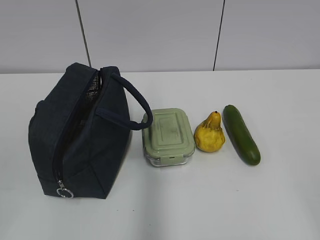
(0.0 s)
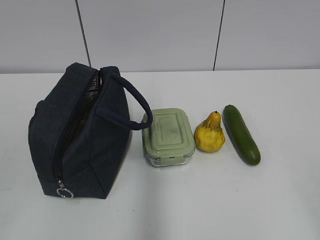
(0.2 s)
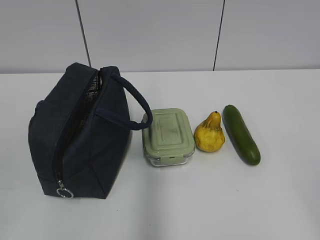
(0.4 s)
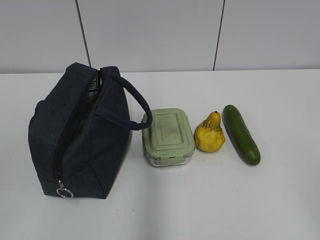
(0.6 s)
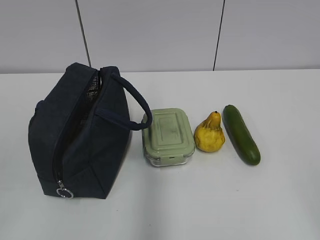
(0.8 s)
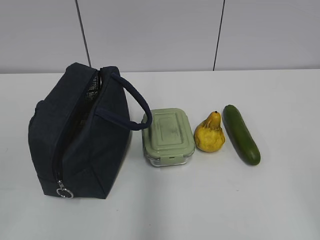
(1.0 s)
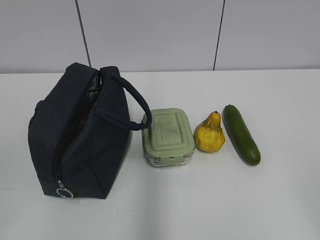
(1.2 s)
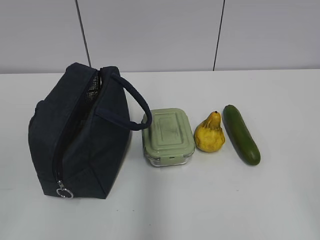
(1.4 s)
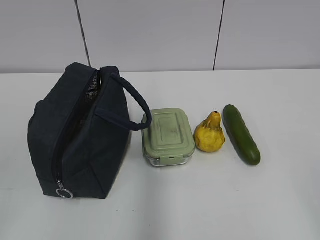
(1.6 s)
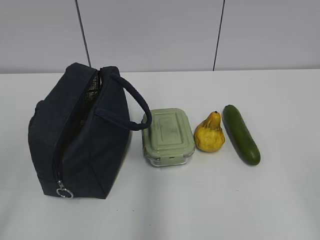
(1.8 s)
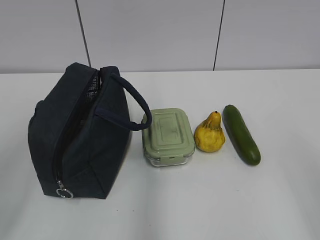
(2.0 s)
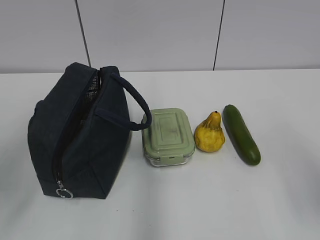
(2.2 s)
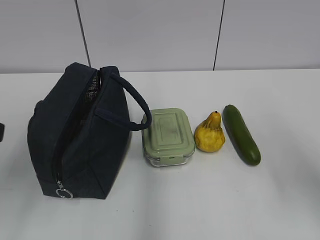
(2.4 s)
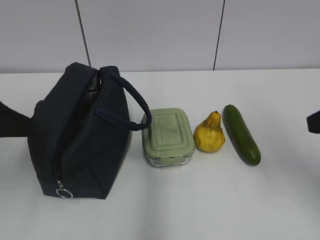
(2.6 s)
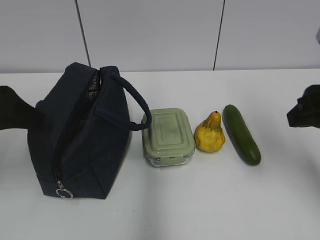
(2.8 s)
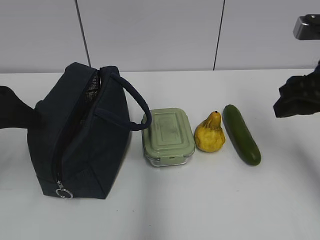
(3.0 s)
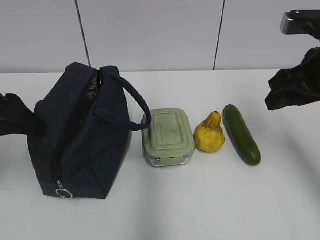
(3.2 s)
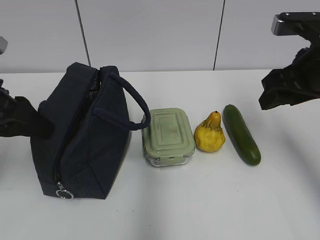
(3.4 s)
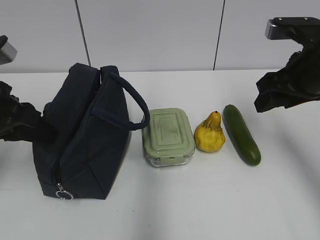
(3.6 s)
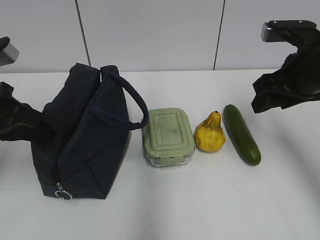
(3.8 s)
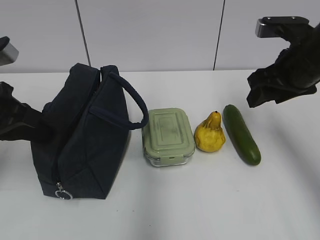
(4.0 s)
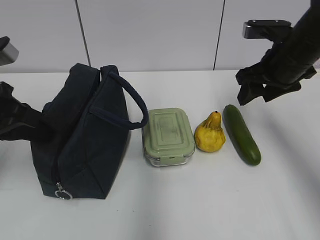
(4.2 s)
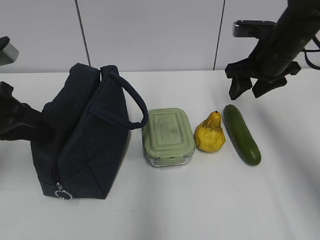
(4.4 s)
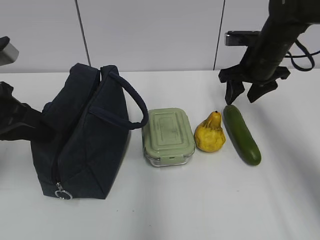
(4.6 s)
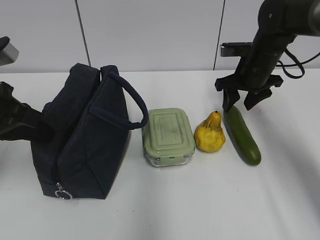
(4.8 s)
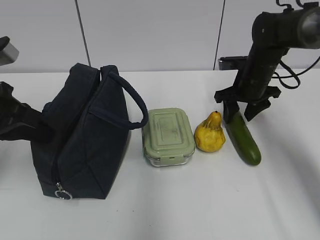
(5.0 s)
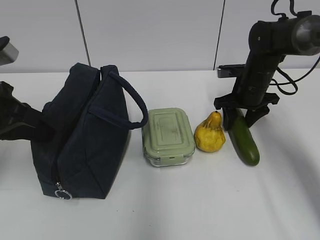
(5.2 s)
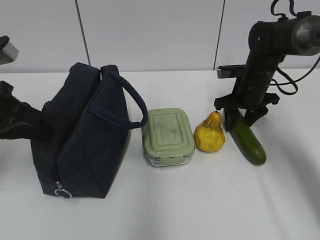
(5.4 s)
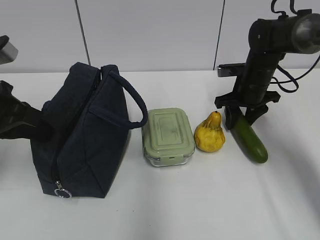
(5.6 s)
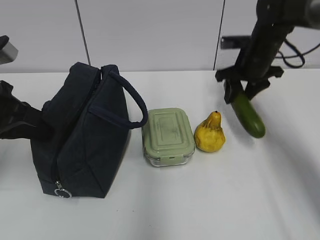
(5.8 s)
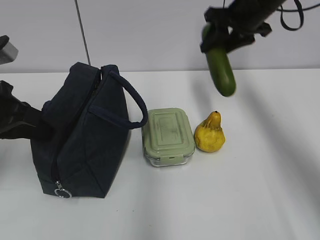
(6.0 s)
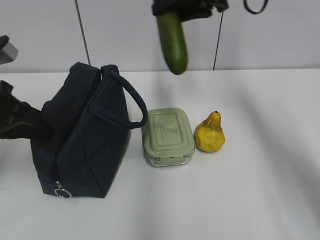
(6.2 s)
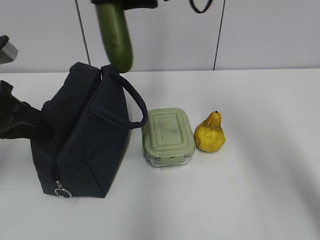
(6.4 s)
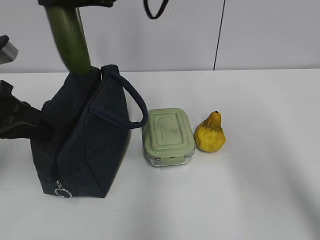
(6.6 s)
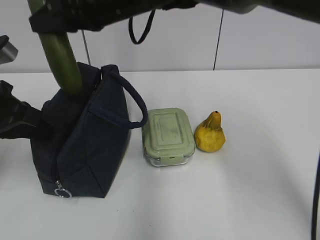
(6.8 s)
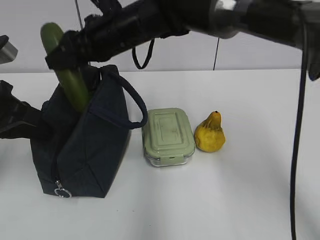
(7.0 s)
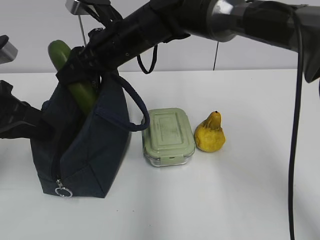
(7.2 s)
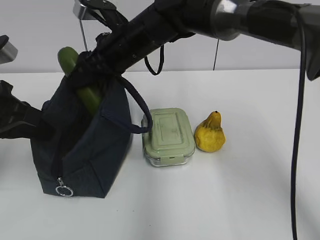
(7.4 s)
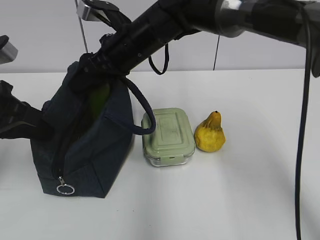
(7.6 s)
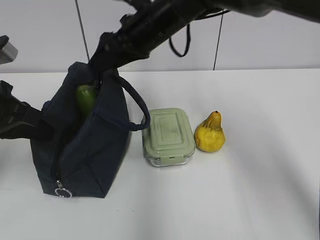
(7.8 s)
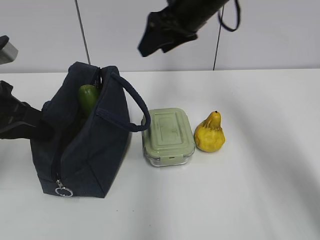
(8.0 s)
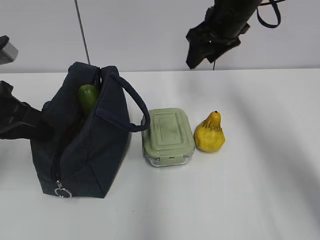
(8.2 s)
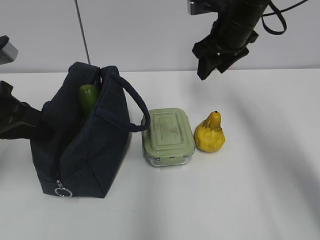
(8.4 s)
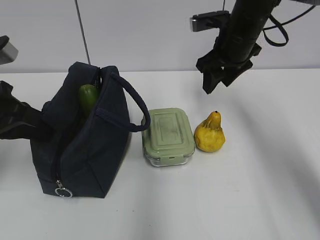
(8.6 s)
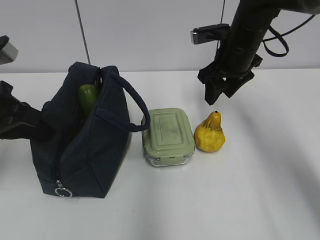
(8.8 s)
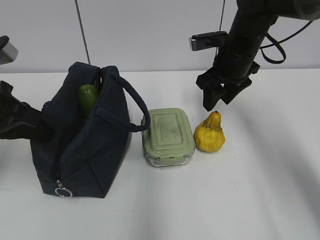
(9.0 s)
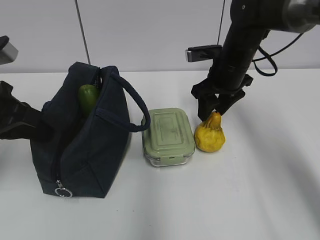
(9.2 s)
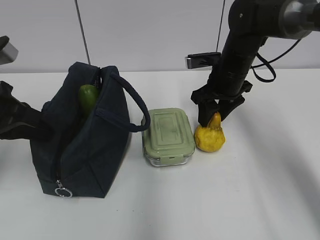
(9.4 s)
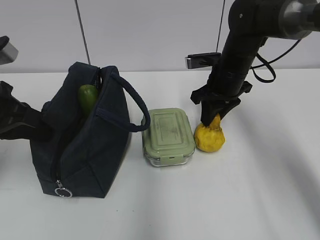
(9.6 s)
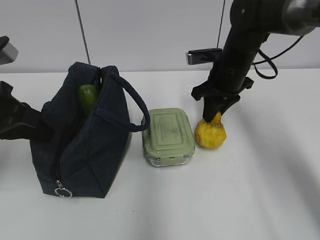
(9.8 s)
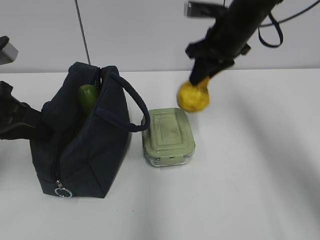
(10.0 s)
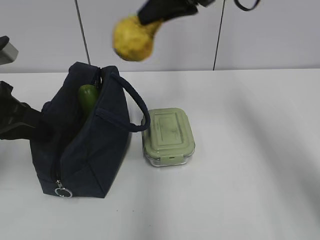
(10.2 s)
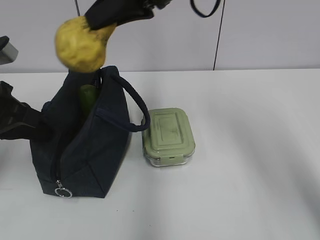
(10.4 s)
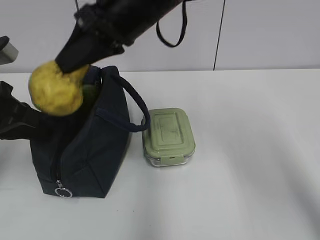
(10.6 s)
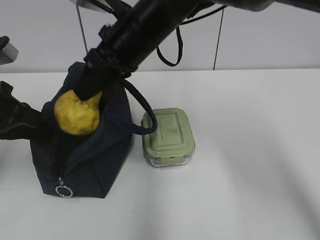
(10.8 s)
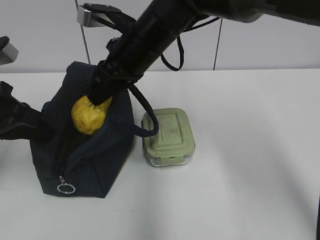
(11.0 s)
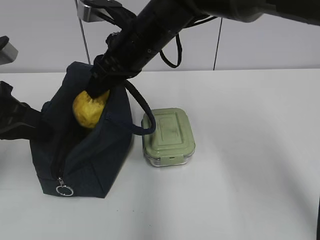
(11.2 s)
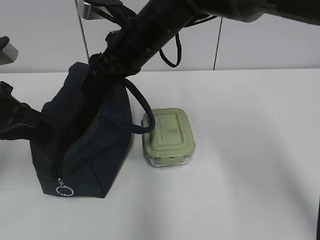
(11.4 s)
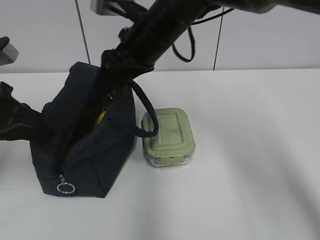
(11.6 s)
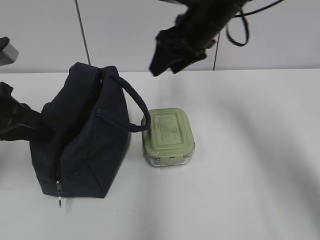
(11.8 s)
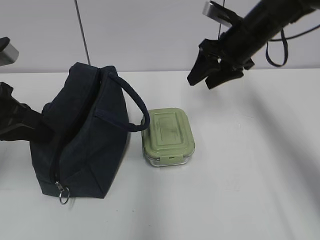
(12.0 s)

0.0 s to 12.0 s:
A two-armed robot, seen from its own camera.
Step, 0.0 to 5.2 s: Grab the cucumber with your right hand.
Step, 7.0 to 7.6 s: Place it into the bag with your right hand.
Step, 8.0 to 9.4 s: Grab the pear with your right hand.
Step, 9.8 to 11.2 s: Place it into the bag with your right hand.
1.6 to 3.0 s: Both grippers move forward, approximately 25 cm.
3.0 to 4.4 s: The left gripper closes its fingers, while the right gripper heads forward, covering about 15 cm.
4.4 to 6.0 s: The right gripper goes about 5 cm upward.
6.0 to 7.6 s: The right gripper moves to the left, approximately 20 cm.
7.6 to 9.0 s: The right gripper heads to the right, covering roughly 15 cm.
9.0 to 10.4 s: The right gripper shifts roughly 20 cm upward, to the left and backward, and closes up.
10.4 to 12.0 s: The right gripper is displaced to the right, downward and forward by roughly 20 cm, and opens.

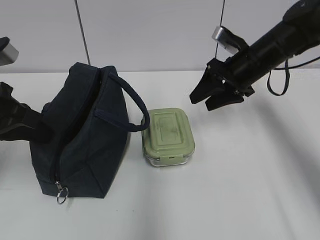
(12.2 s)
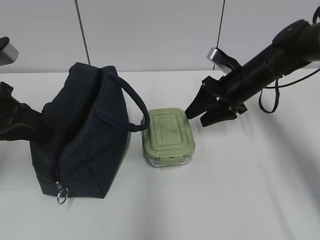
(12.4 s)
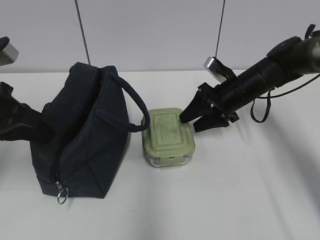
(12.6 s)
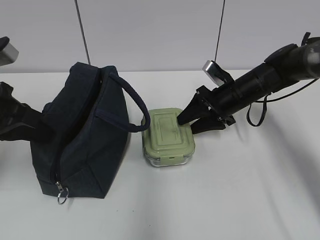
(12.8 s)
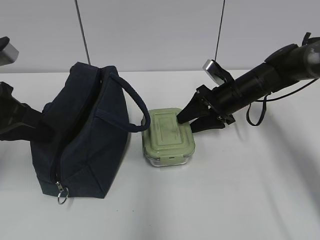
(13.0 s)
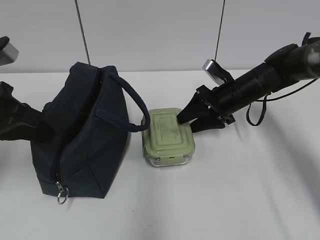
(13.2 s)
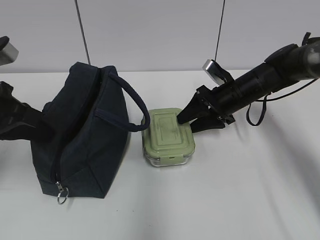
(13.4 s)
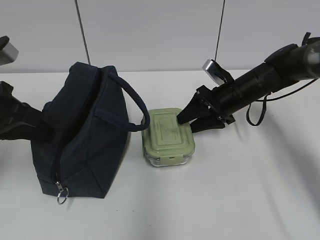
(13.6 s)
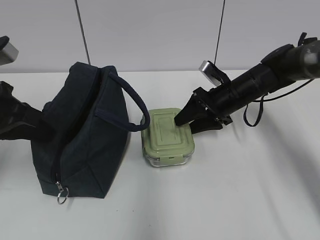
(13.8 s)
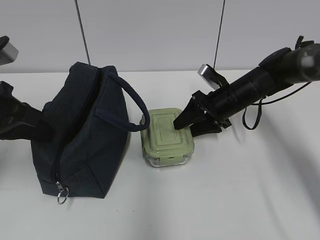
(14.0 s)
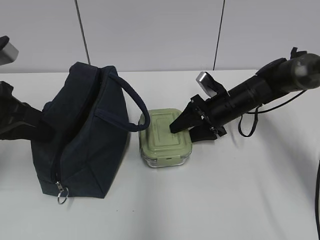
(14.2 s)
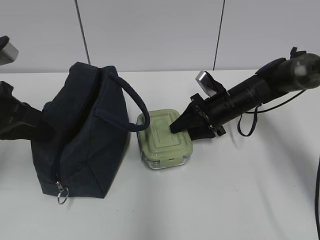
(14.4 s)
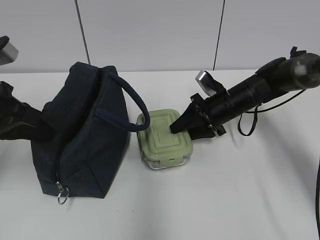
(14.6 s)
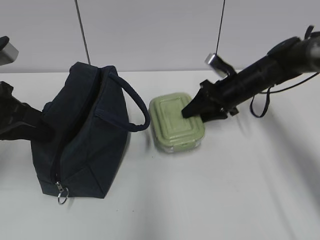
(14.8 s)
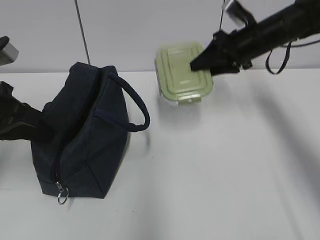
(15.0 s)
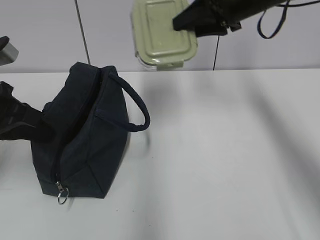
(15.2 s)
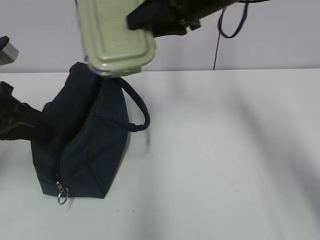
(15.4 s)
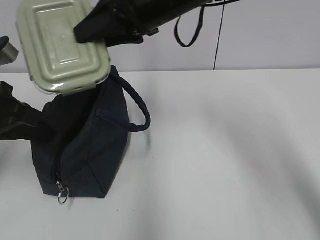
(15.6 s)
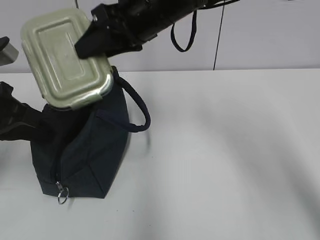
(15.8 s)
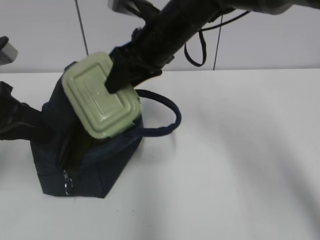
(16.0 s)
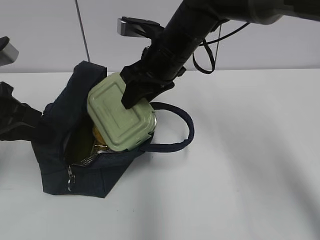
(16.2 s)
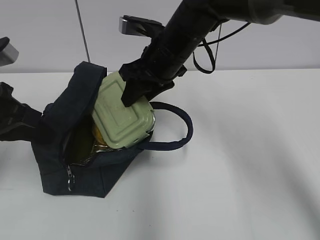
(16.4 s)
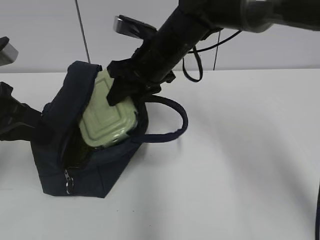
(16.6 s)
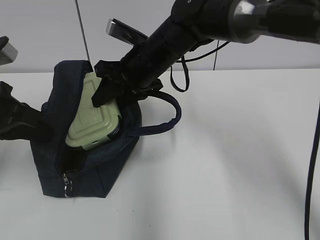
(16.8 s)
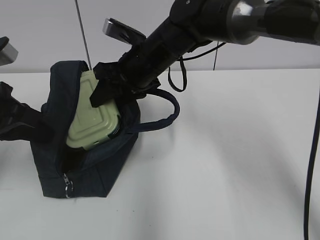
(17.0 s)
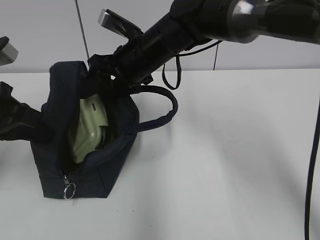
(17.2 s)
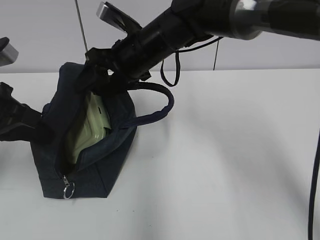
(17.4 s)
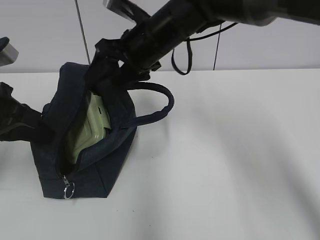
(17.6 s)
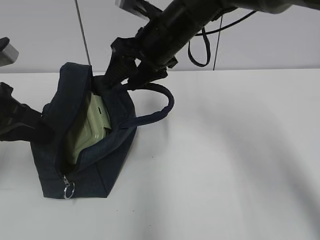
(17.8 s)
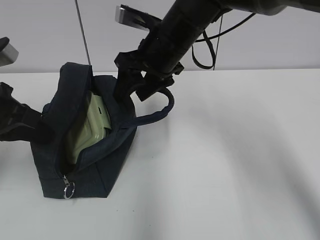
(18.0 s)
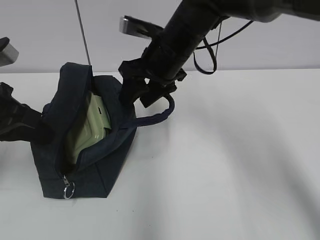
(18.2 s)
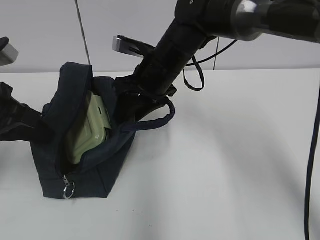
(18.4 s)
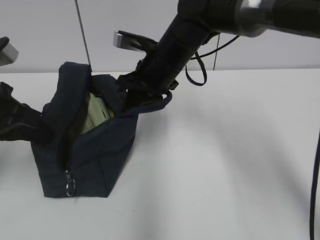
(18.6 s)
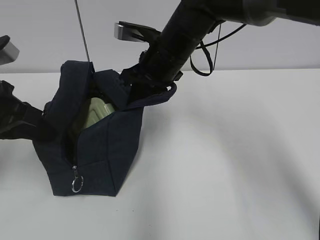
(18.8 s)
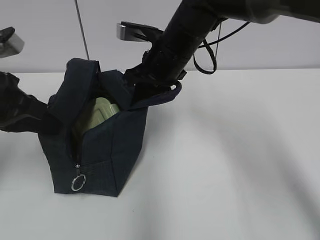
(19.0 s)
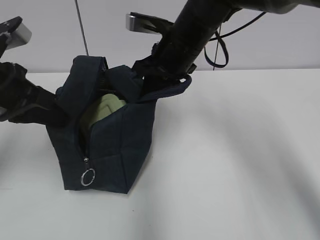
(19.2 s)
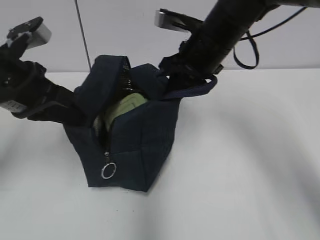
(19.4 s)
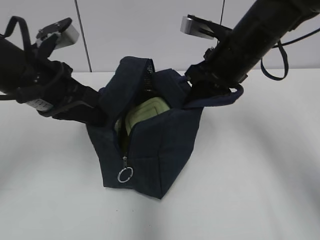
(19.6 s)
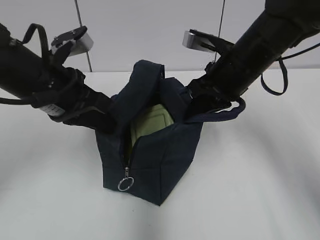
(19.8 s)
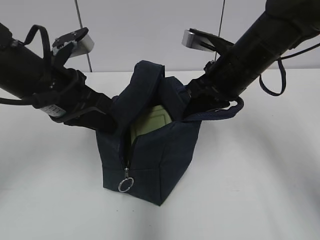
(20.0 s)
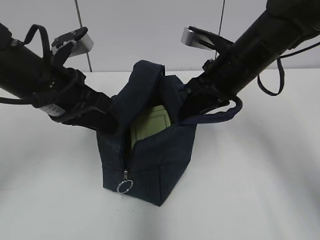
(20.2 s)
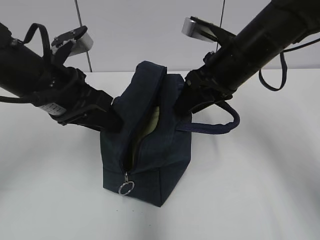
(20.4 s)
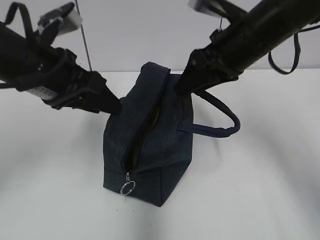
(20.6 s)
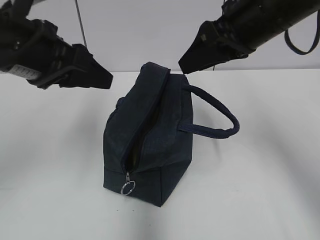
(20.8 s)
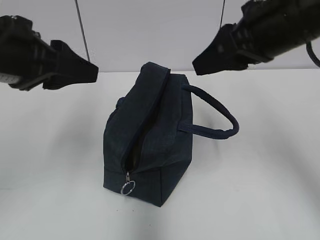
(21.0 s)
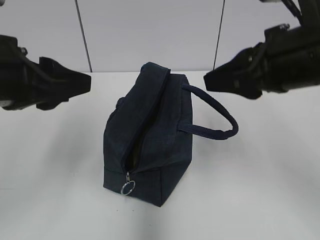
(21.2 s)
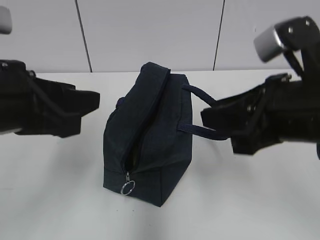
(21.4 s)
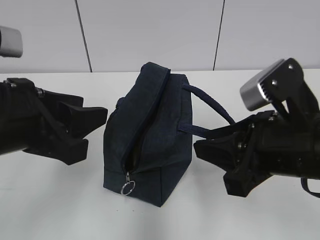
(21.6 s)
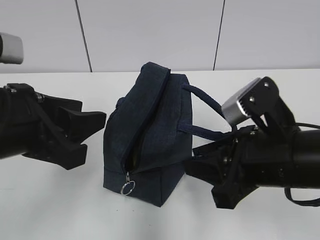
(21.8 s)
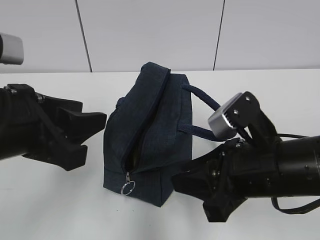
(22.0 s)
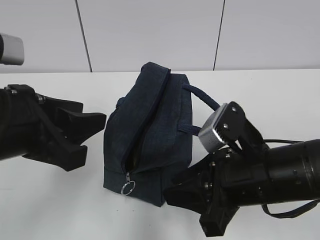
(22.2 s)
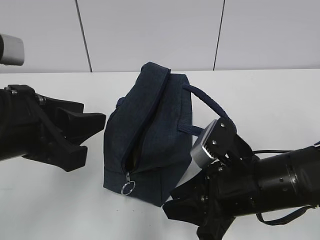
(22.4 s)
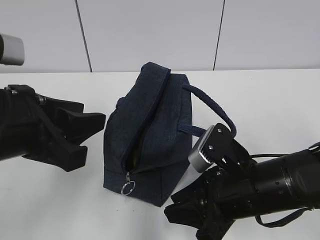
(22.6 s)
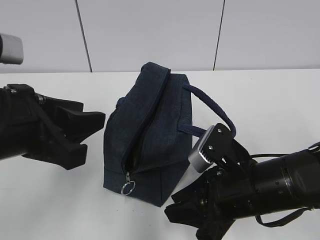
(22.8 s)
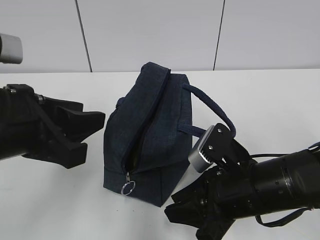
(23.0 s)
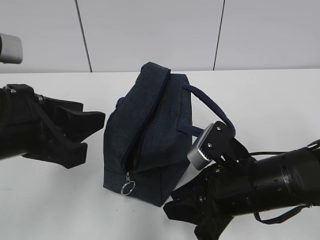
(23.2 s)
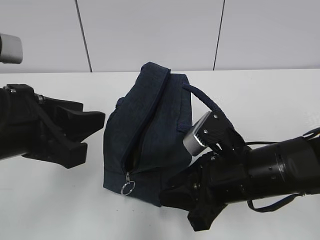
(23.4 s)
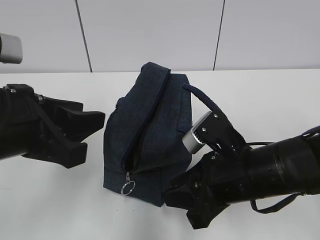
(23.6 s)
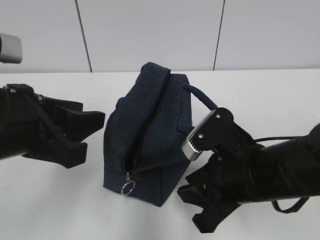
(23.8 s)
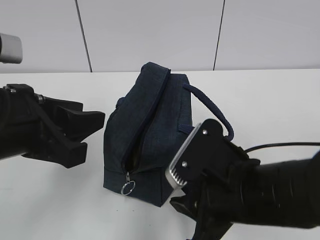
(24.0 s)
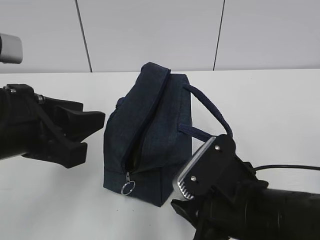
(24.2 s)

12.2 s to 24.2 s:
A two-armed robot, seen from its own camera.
Step, 12.2 to 14.4 s: Grab the lunch box with your right hand.
Step, 17.4 to 18.4 s: Grab the lunch bag with your right hand.
Step, 18.6 to 20.4 s: Move the lunch bag to the right.
12.2 to 13.8 s: The right gripper travels downward by some 5 cm.
13.8 to 15.2 s: The right gripper goes approximately 20 cm upward.
15.2 to 16.6 s: The right gripper shifts about 15 cm to the left and downward.
16.6 to 18.2 s: There are only small adjustments of the grippers.
18.2 to 19.8 s: Both grippers move to the right, roughly 10 cm. The right gripper closes up.
19.8 to 21.2 s: The left gripper heads backward, covering about 10 cm, and opens its fingers. The right gripper moves backward and upward, about 15 cm, and opens up.
21.2 to 22.6 s: The right gripper moves downward, roughly 15 cm; the left gripper ends up roughly 5 cm from where it was.
